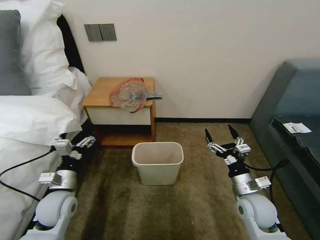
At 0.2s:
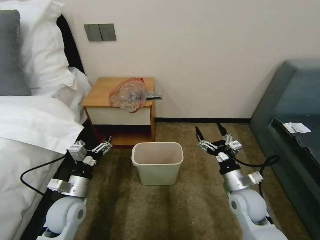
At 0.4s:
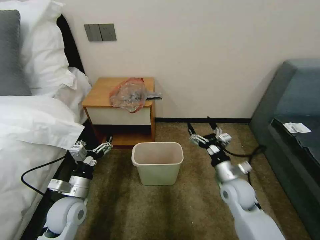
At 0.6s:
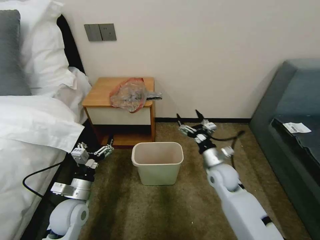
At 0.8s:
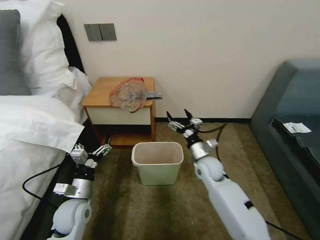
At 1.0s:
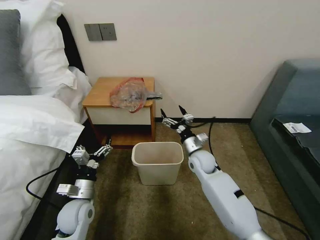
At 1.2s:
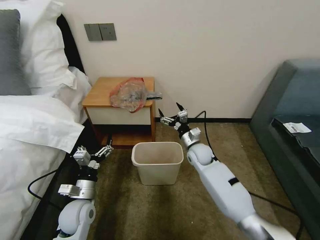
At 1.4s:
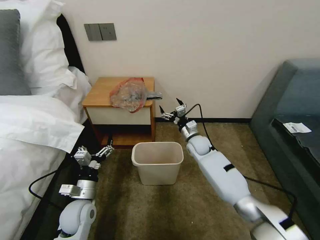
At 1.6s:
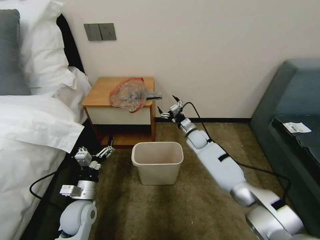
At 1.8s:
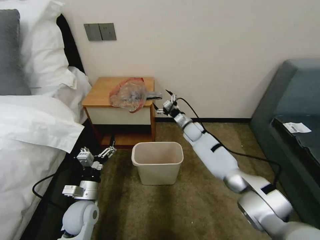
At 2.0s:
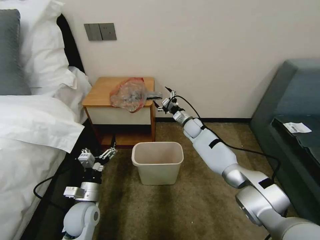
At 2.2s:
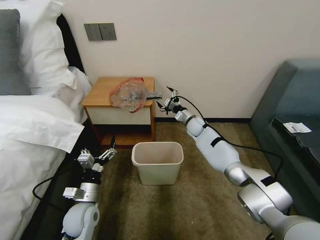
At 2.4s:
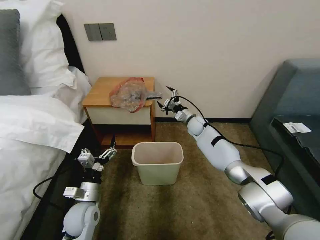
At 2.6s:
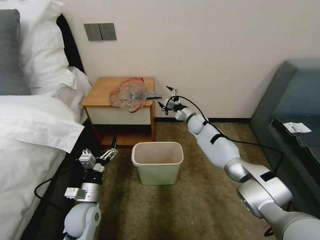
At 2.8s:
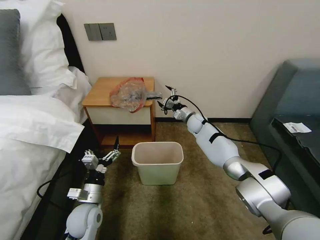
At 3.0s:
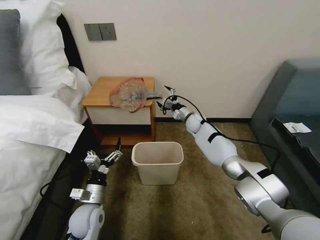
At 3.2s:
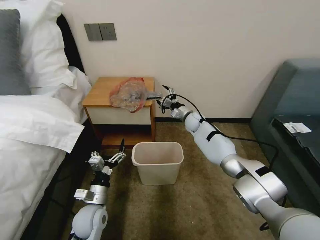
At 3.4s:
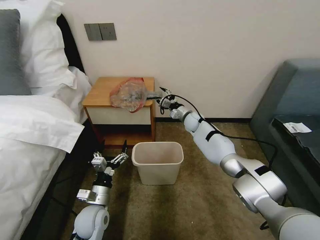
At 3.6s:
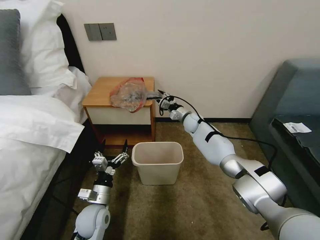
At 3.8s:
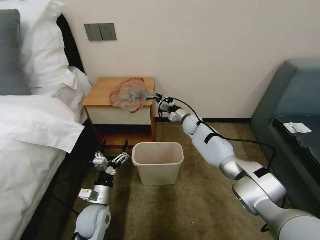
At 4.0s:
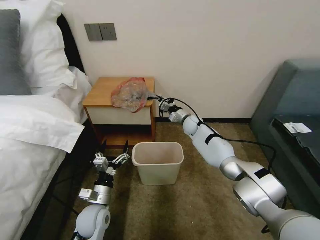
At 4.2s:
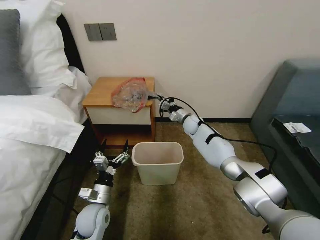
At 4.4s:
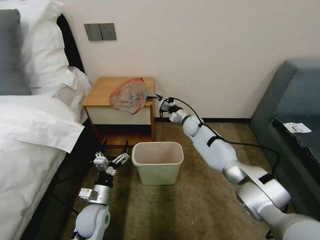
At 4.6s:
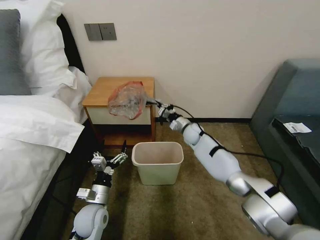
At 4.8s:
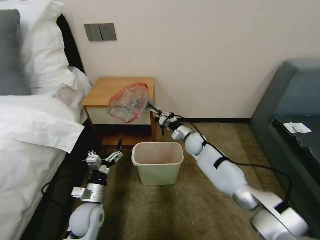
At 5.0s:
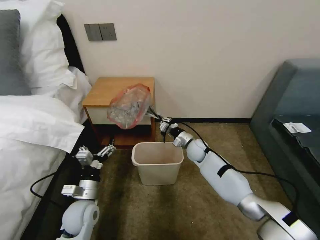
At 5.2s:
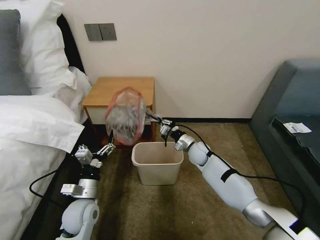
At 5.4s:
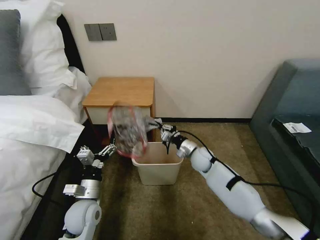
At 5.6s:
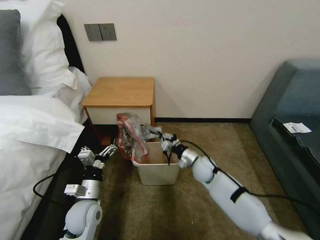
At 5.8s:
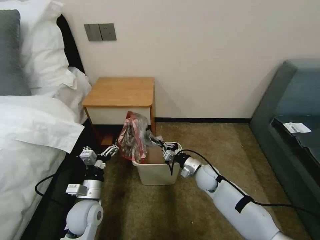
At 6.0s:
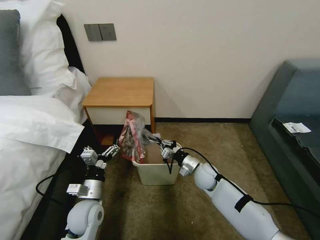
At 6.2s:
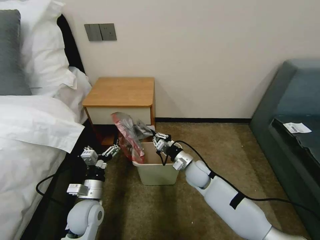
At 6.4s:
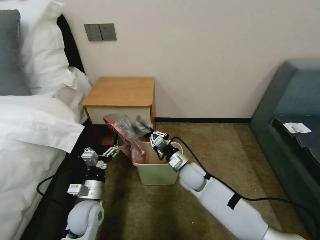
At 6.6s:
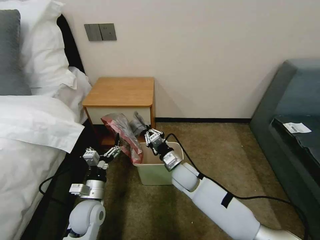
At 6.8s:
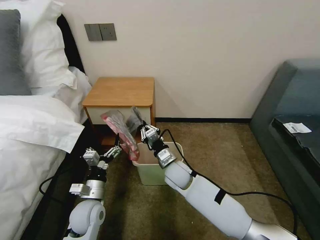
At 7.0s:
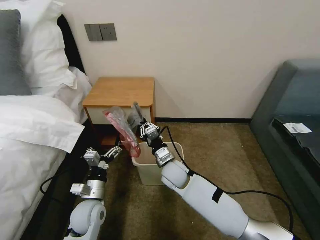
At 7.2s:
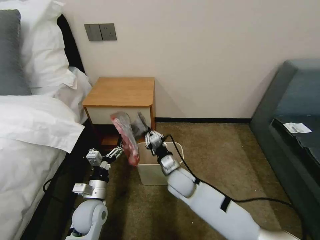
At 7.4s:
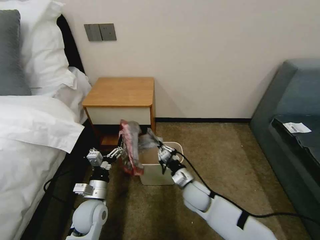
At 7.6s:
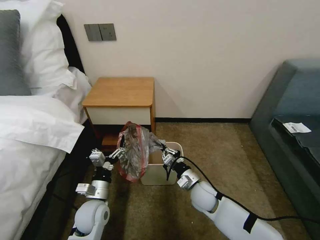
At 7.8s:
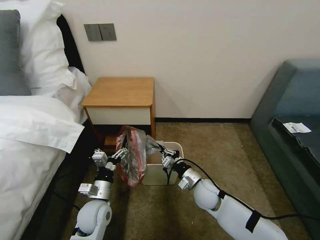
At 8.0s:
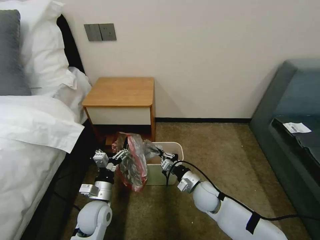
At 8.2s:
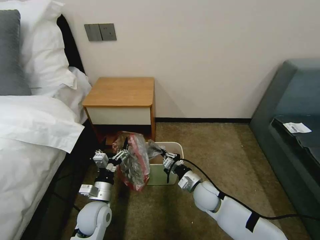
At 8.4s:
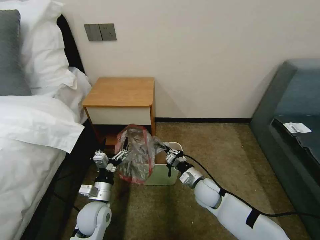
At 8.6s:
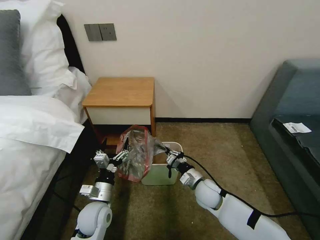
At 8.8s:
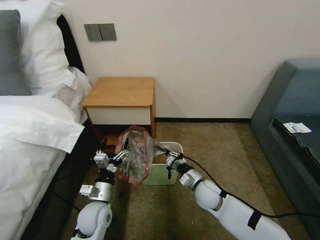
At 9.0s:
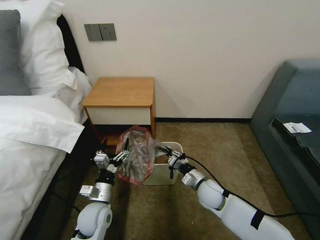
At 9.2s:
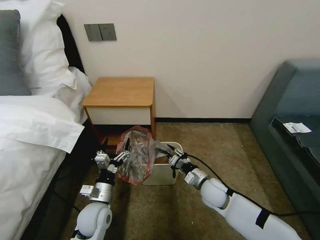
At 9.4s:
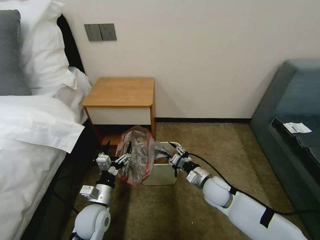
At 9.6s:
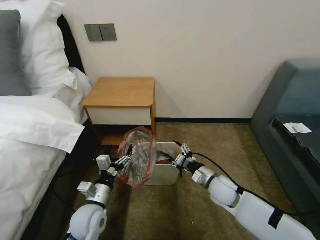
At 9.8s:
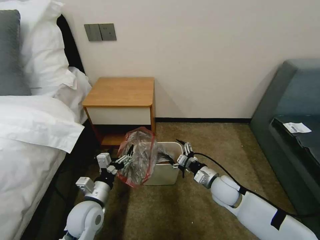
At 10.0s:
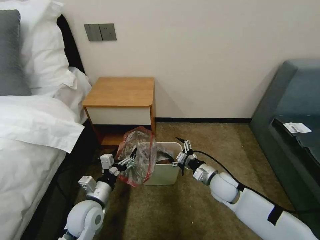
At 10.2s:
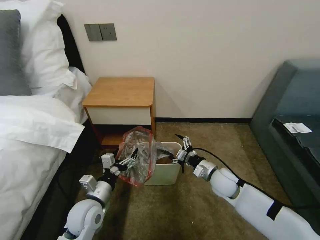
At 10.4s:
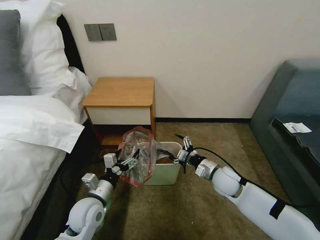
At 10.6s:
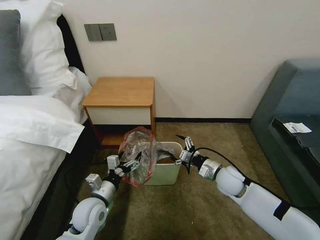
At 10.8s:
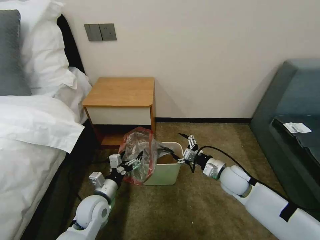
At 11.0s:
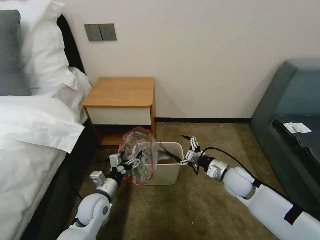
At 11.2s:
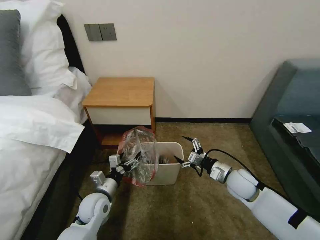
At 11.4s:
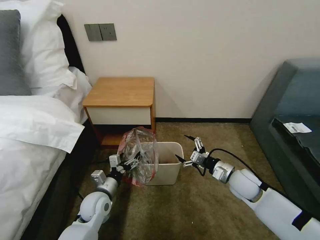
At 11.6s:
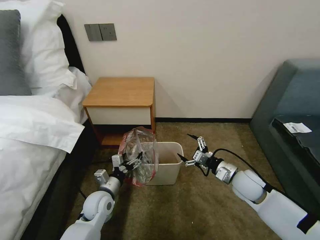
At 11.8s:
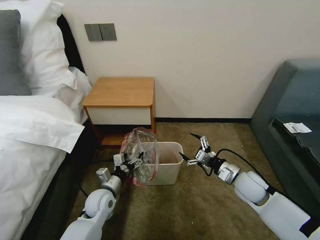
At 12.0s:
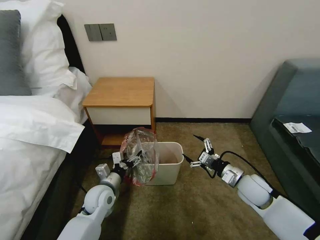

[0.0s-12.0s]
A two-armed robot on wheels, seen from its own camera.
Task of the whole recording: Pick up the garbage bag from the table and place it over the trash can.
0.0s to 1.6s: The right gripper heads forward and to the left, covering some 30 cm, while the left gripper shifts roughly 5 cm to the right and downward.
1.6s to 3.0s: The right gripper shifts about 10 cm forward.
3.0s to 4.4s: The right gripper closes.
4.4s to 6.0s: The right gripper travels backward by about 20 cm.
6.0s to 7.6s: The right gripper is displaced backward by about 5 cm, and travels to the left and back again, approximately 15 cm each way.
7.6s to 9.0s: The grippers stay close to where they were, moving slightly.
9.0s to 10.4s: The right gripper moves to the right, approximately 5 cm, and opens.
10.4s to 12.0s: The left gripper heads forward, covering approximately 5 cm; the right gripper shifts approximately 5 cm to the right.

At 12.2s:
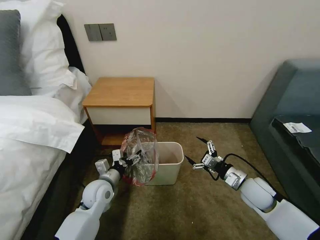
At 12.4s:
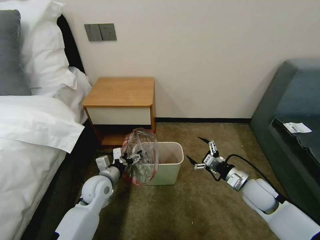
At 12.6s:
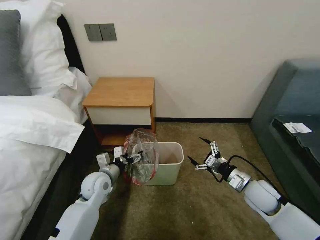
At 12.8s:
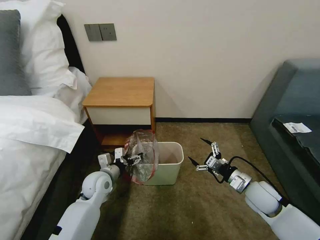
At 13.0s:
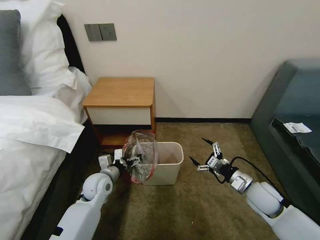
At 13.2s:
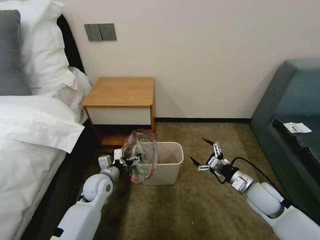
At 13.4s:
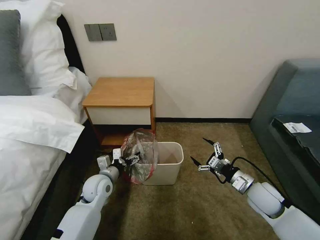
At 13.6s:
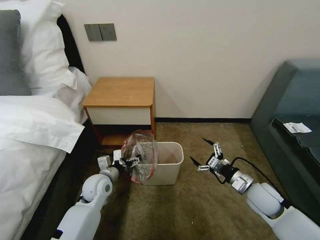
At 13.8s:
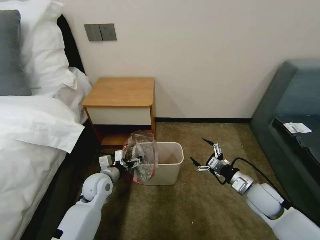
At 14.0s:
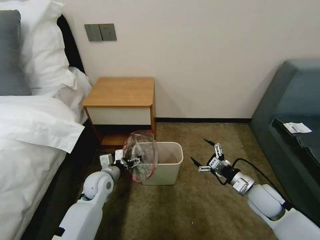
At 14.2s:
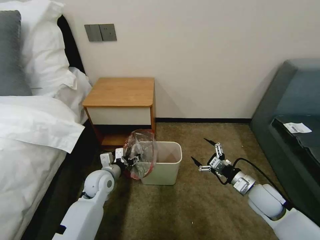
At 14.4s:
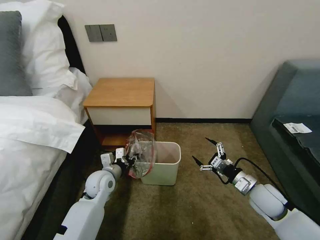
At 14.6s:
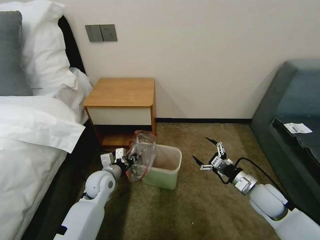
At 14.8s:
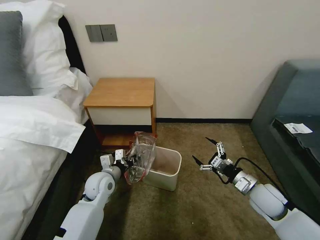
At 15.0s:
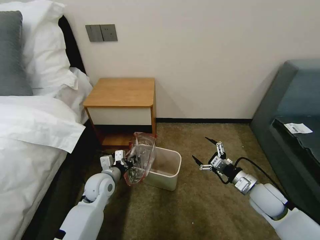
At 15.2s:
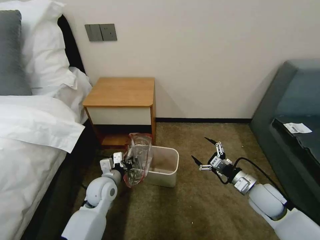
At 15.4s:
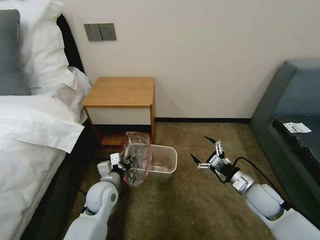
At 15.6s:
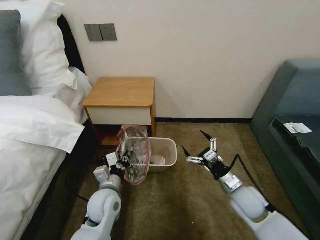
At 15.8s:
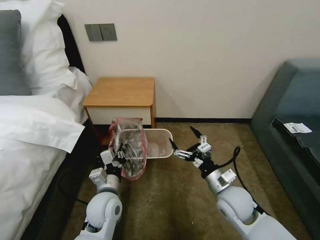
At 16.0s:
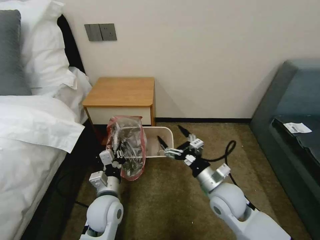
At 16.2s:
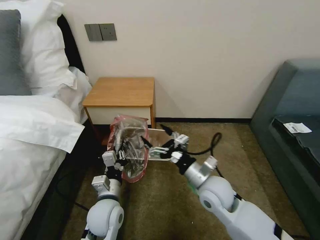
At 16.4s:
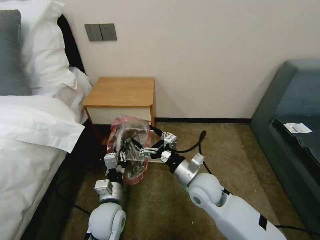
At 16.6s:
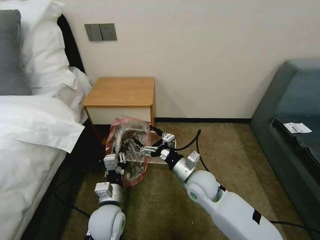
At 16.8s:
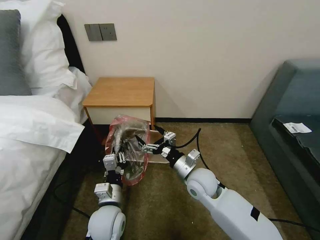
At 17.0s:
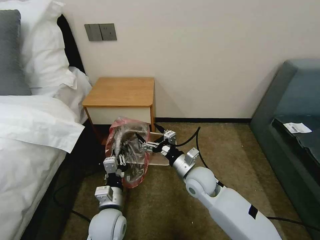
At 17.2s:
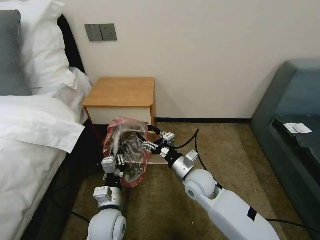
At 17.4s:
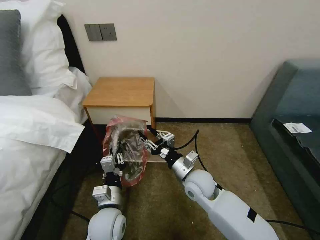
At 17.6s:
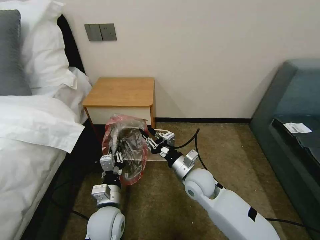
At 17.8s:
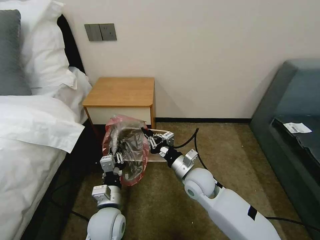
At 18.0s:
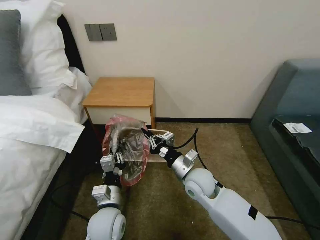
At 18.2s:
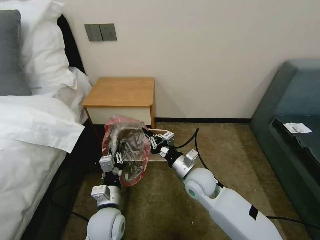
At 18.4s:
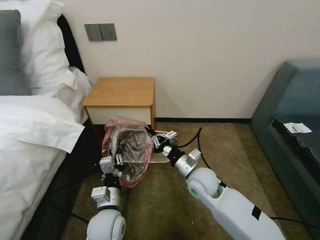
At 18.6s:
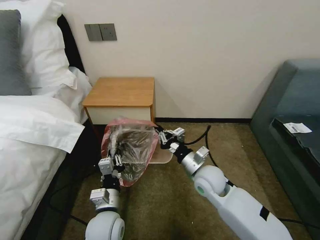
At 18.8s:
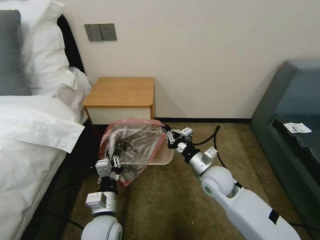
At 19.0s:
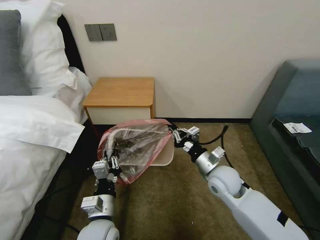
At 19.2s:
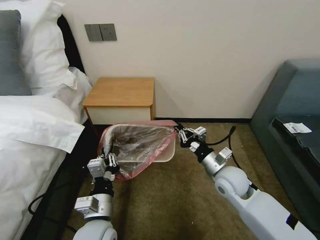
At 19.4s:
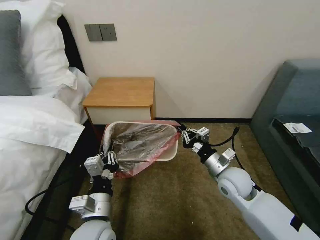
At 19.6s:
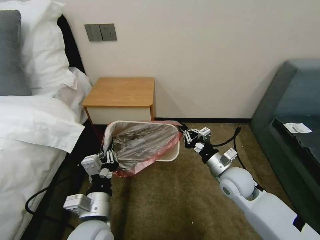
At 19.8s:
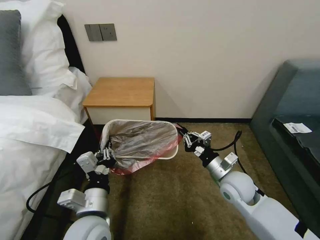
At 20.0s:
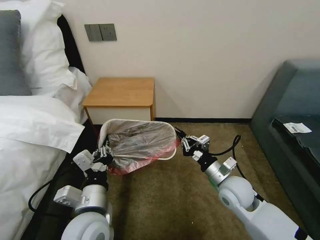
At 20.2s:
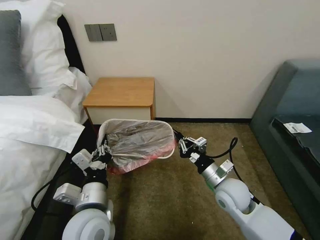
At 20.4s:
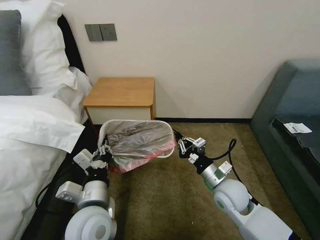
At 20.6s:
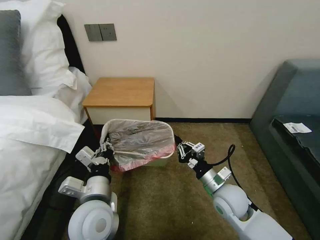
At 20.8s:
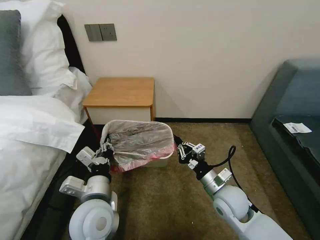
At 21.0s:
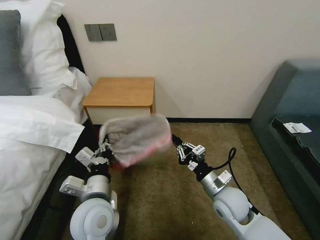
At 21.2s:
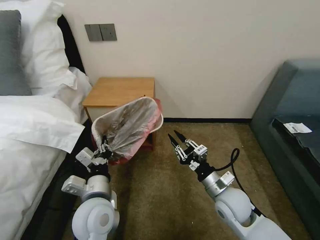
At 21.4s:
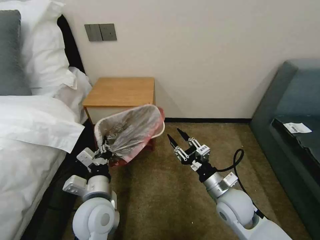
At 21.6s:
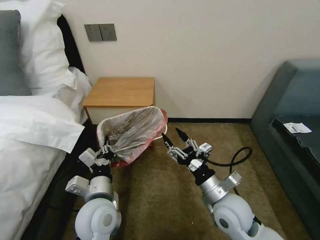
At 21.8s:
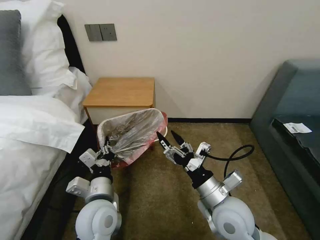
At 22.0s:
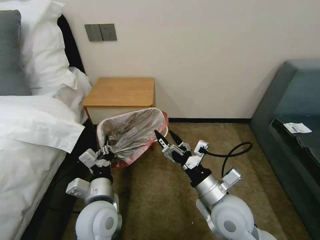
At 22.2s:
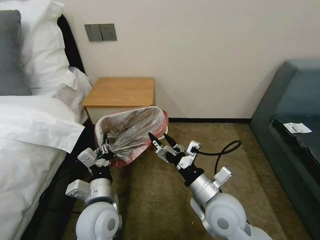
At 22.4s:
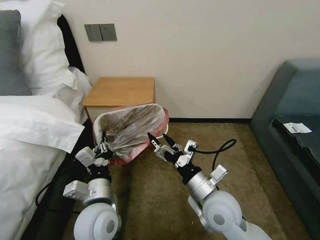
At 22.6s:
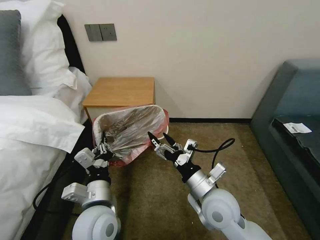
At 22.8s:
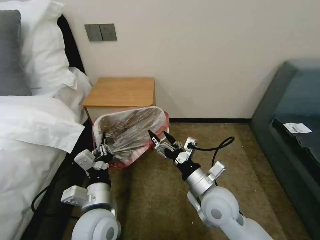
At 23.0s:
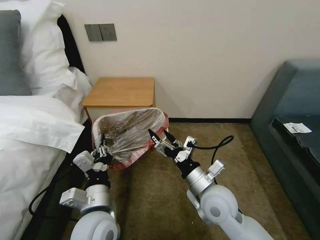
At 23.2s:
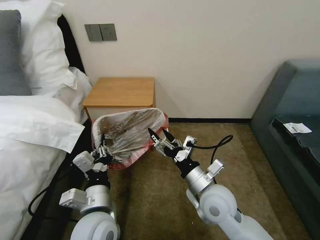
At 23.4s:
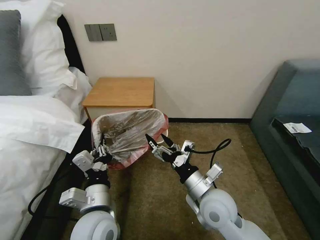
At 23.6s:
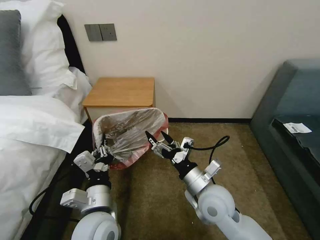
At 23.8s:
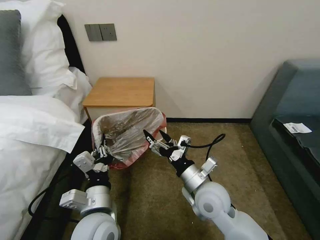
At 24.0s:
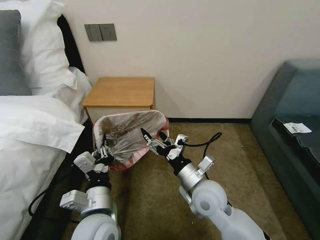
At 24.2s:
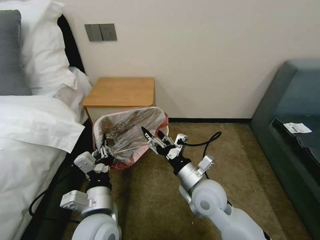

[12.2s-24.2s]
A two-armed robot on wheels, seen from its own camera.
Task of the whole recording: Pick up the garbage bag from the table and place it over the trash can.
12.2s to 13.8s: There are only small adjustments of the grippers.
13.8s to 15.2s: The left gripper closes its fingers.
15.2s to 16.6s: The left gripper travels backward by some 10 cm. Meanwhile the right gripper is displaced to the left by about 20 cm.
16.6s to 18.2s: The right gripper closes.
18.2s to 19.8s: The right gripper is displaced to the right by some 10 cm. Meanwhile the left gripper is displaced upward by roughly 10 cm.
19.8s to 21.2s: The right gripper shifts by approximately 5 cm.
21.2s to 22.6s: The right gripper shifts roughly 10 cm to the left and upward, and opens up.
22.6s to 24.2s: The grippers stay close to where they were, moving slightly.
